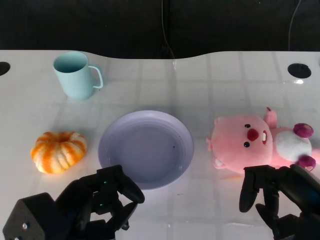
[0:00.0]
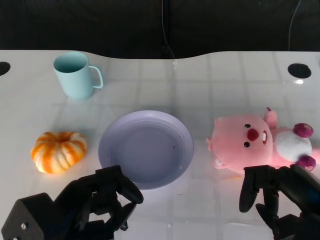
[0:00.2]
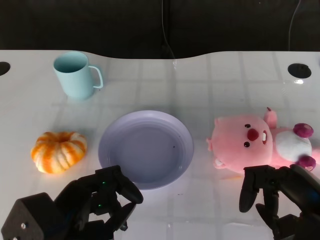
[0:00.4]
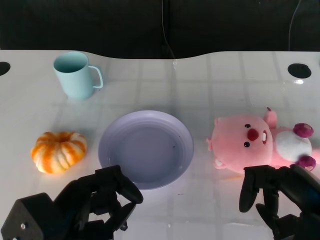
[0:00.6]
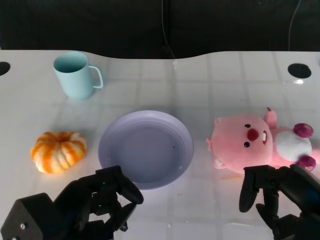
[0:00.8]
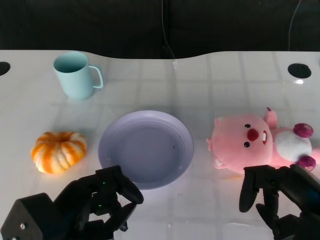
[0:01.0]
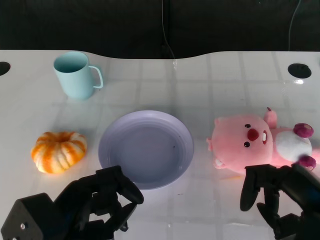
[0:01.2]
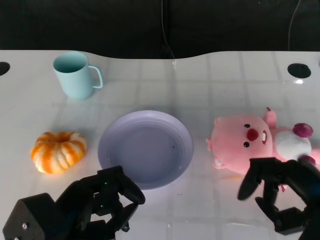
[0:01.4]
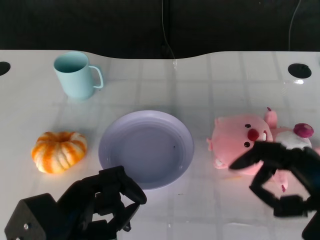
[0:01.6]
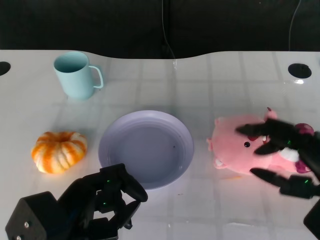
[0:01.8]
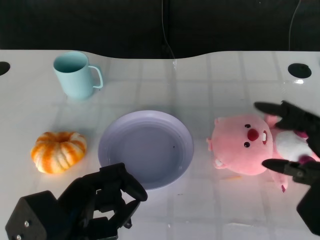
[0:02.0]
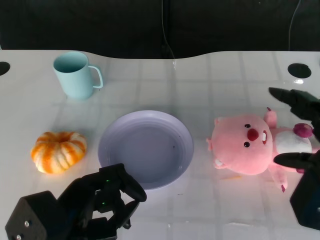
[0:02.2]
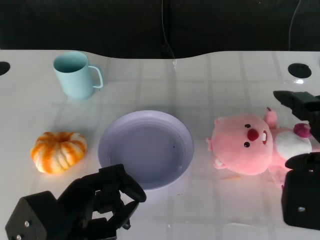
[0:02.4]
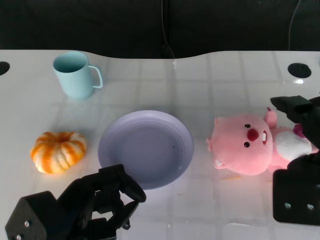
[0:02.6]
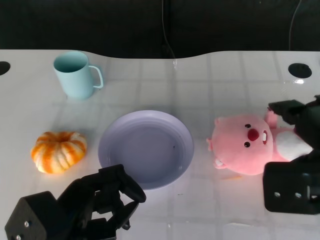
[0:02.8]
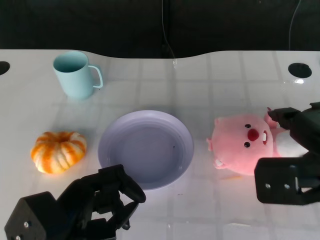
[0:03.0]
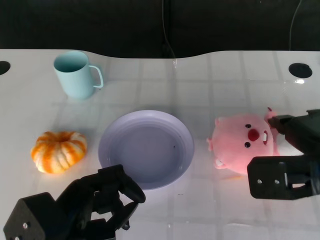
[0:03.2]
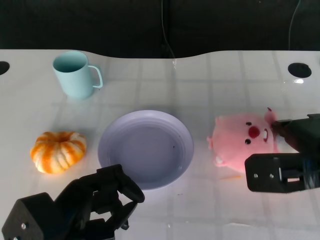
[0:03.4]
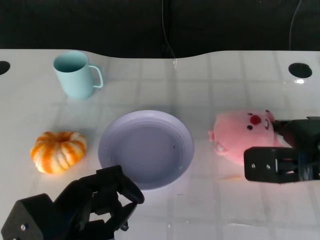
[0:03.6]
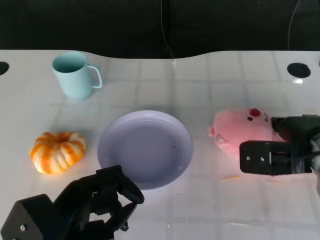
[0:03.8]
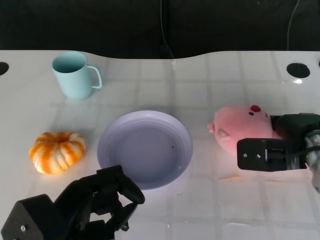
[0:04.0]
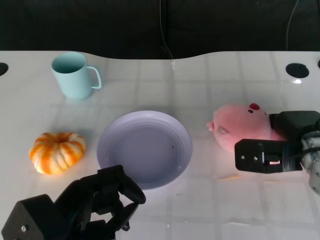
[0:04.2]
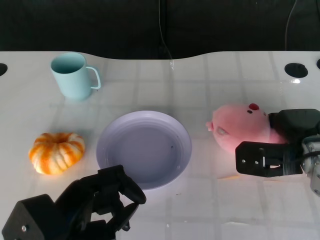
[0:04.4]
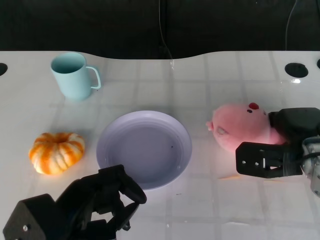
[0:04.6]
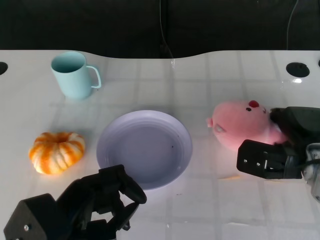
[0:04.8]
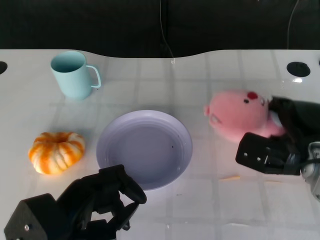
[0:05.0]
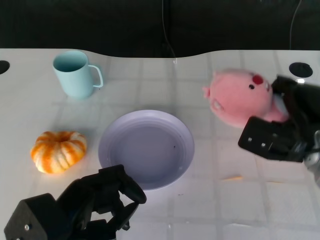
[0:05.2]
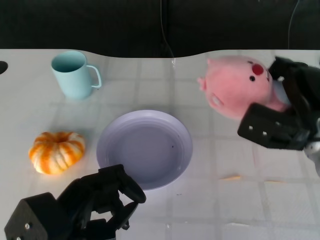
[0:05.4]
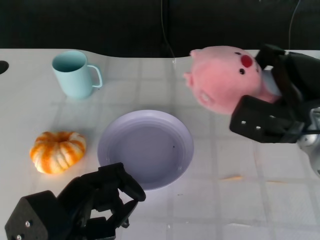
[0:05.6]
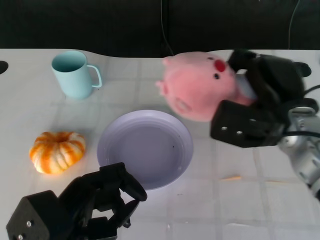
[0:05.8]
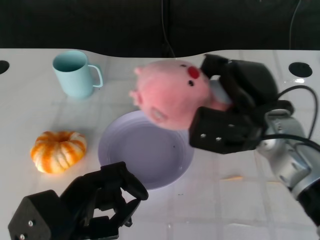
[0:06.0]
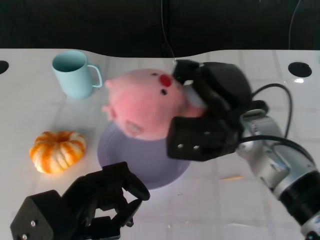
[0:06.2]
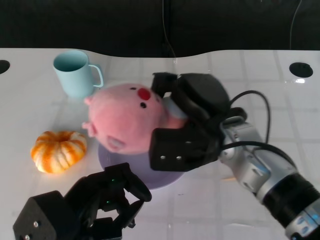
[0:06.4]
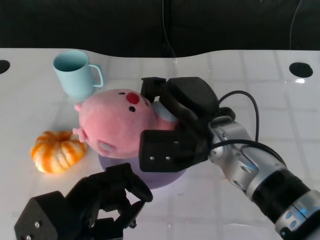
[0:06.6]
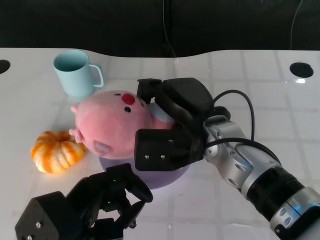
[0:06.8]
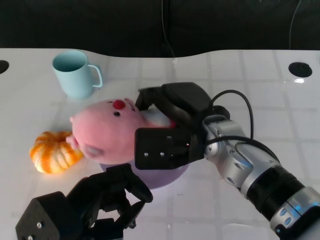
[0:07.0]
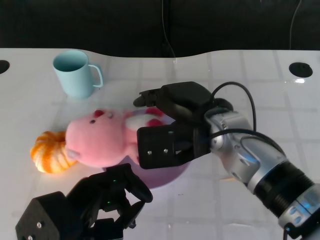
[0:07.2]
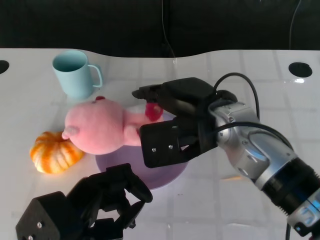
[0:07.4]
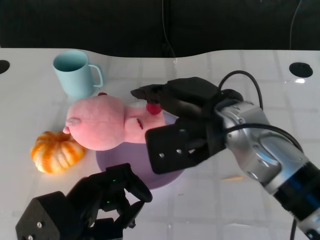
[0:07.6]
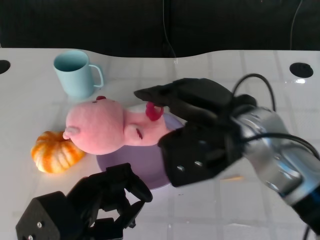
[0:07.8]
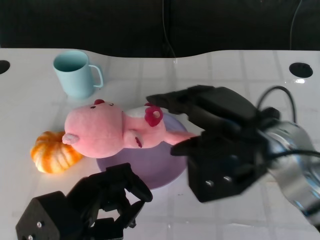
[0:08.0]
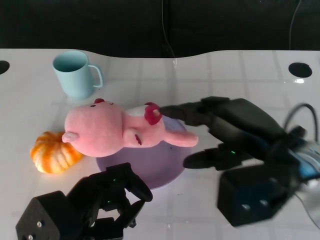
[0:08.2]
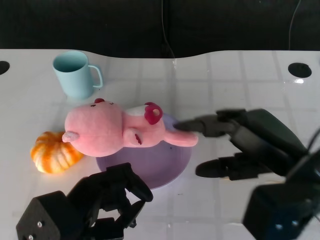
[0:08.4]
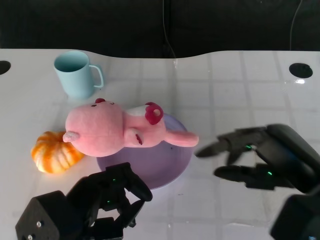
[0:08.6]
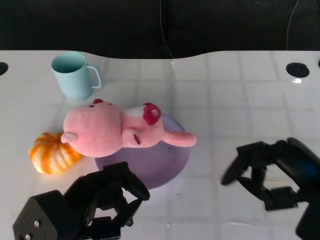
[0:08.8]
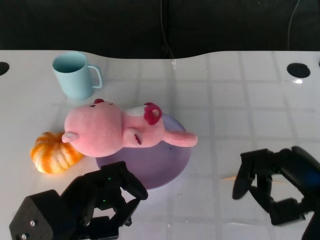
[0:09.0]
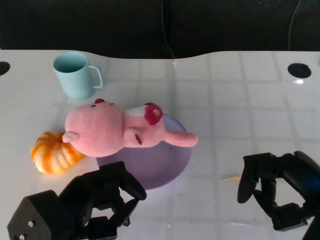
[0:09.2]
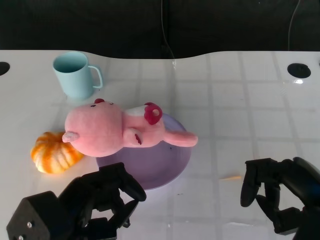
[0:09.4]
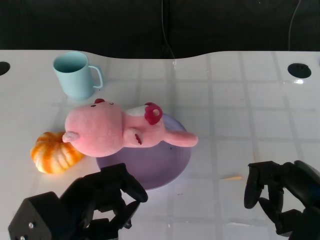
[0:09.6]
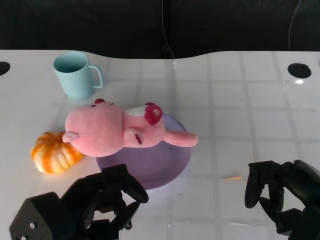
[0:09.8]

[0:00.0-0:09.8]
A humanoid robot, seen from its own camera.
Task of the whole recording: Pick up the doll on the other side of the plate and place it into the plate.
Step, 0:01.4 to 0:05.0: Grasp the pink doll with the right gripper.
Step, 0:05.2 to 0:07.4: Place the pink doll into the plate with the right gripper.
0:01.4 to 0:02.8: The right hand shifts some 10 cm upward.
0:02.8 to 0:04.2: The right hand goes about 15 cm downward and forward.
0:04.2 to 0:05.6: The right hand heads upward, covering about 5 cm.
0:05.6 to 0:07.0: The right hand goes approximately 15 cm to the left.
0:07.0 to 0:08.4: The right hand goes roughly 15 cm to the right and backward.
0:08.4 to 0:09.8: The right hand travels to the right and downward by about 10 cm.

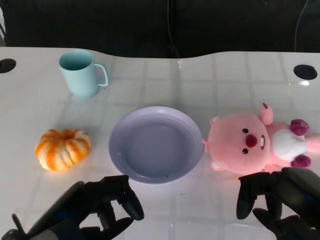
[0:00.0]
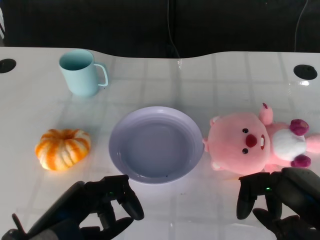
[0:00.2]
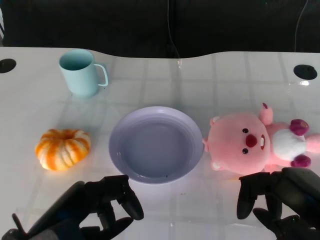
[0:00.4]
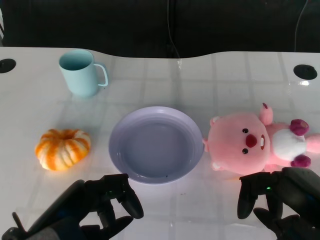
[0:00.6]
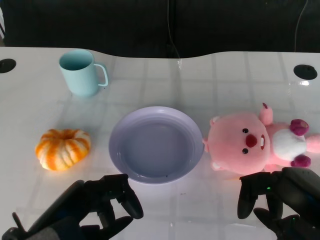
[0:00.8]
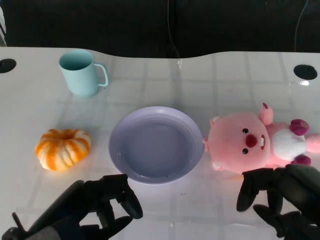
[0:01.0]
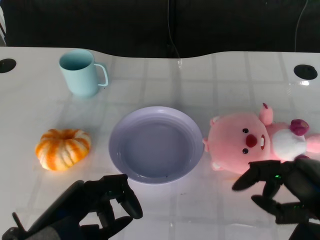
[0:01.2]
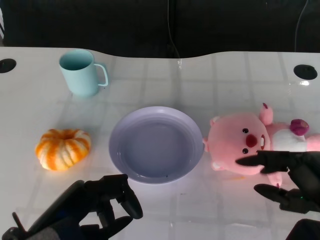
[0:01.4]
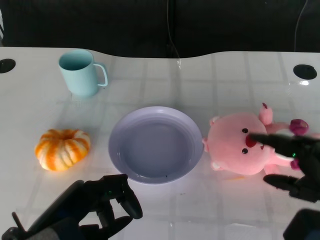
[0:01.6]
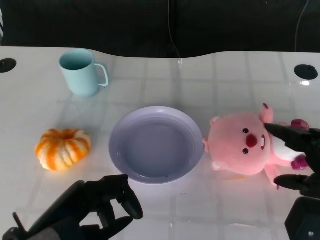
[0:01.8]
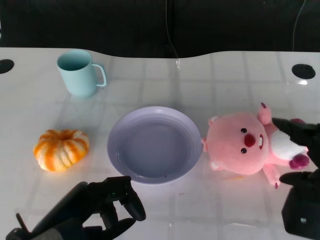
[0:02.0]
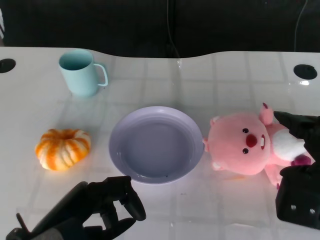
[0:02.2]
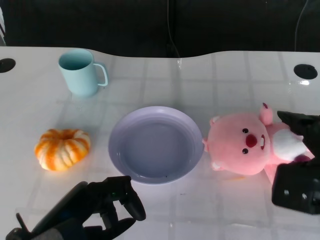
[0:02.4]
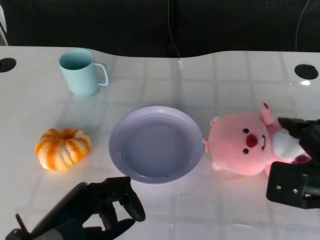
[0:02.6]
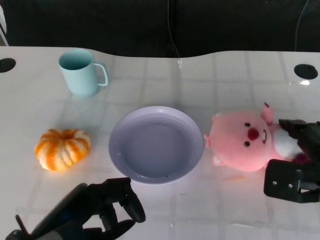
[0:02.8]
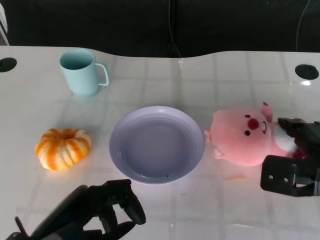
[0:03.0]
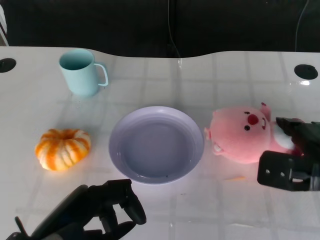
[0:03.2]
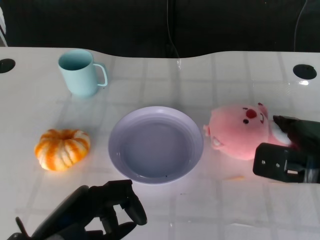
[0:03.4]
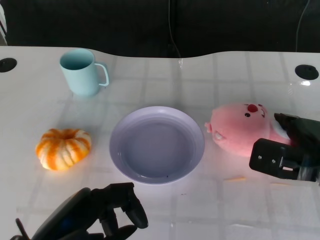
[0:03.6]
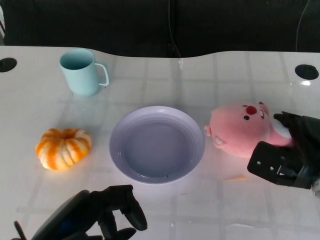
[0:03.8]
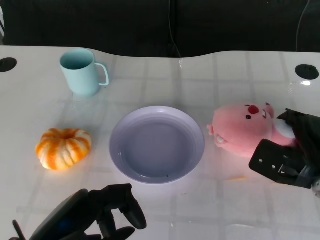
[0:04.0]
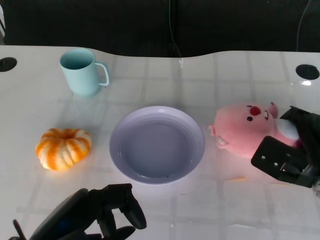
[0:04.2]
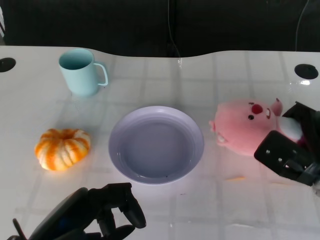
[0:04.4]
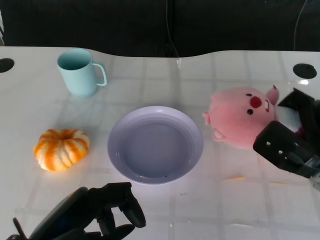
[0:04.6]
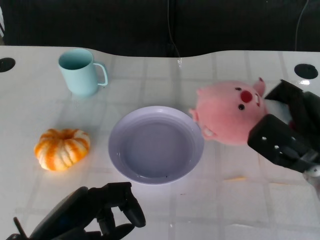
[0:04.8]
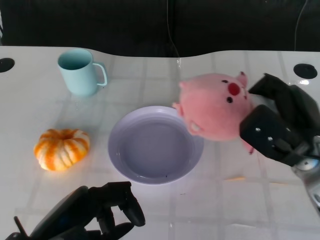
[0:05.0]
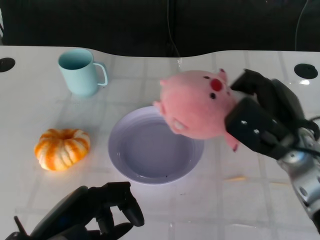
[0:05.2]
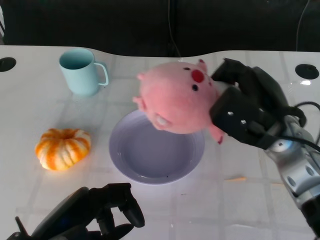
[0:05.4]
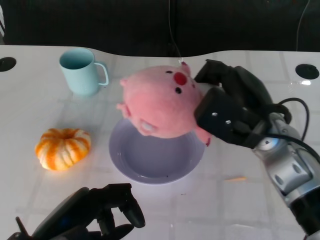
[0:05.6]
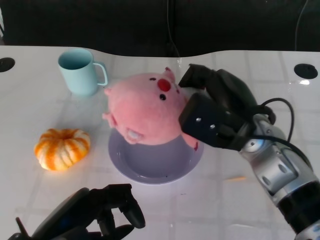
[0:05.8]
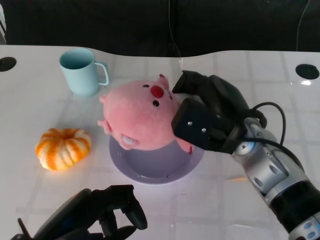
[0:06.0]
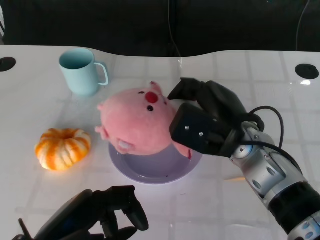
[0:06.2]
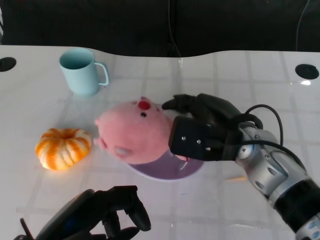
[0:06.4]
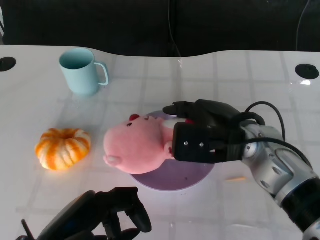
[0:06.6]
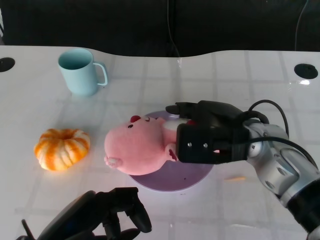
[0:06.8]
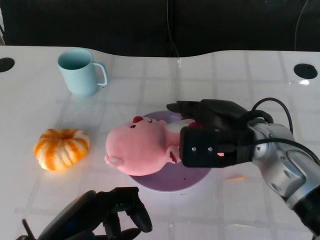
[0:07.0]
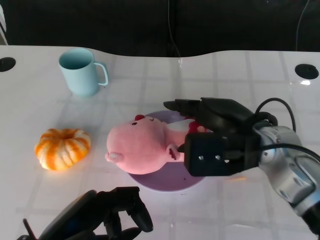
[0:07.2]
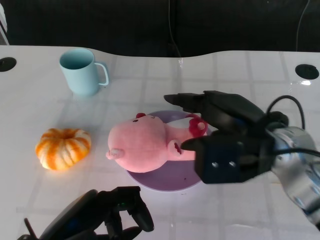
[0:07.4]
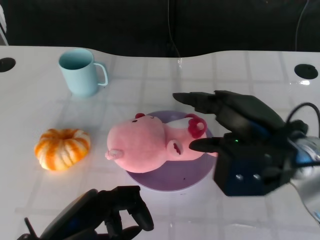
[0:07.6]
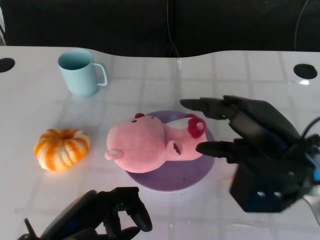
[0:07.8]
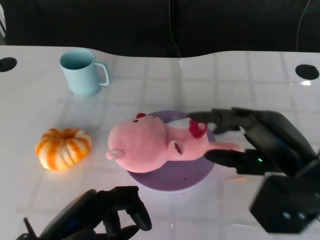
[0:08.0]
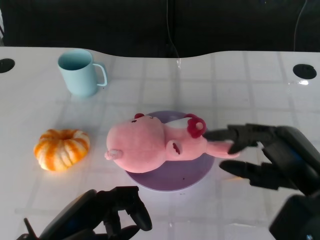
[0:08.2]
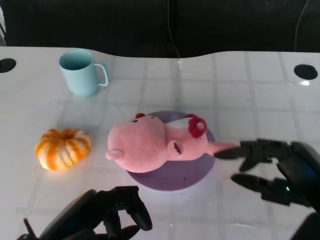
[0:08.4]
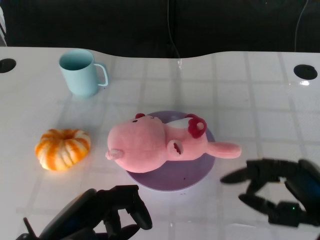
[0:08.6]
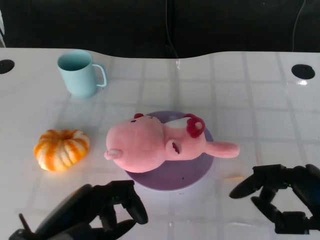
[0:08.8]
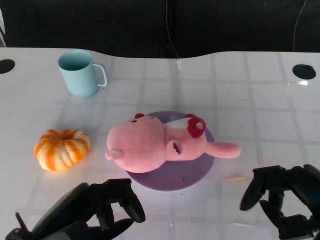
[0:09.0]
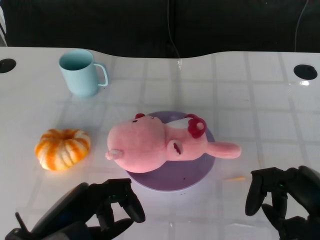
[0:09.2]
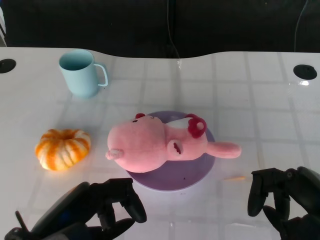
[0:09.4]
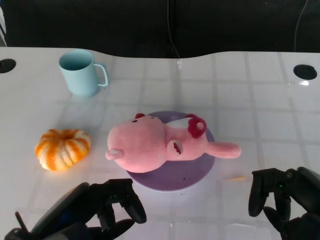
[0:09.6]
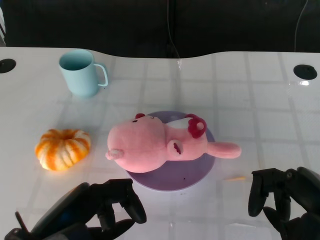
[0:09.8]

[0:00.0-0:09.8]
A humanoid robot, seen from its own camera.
Task of the whole recording: Pick up the doll on the other side of the plate and place it into the plate.
Step, 0:01.0 to 0:04.8: Grasp the pink doll with the right gripper.
Step, 0:05.2 to 0:07.6: Place the pink doll into the plate with the right gripper.
0:01.4 to 0:02.8: The right hand is displaced forward by some 10 cm.
0:02.8 to 0:04.2: The right hand changes place by roughly 5 cm.
0:04.2 to 0:05.6: The right hand travels to the left and upward by about 15 cm.
0:07.0 to 0:08.4: The right hand is displaced backward and to the right by approximately 15 cm.
0:08.4 to 0:09.8: There are only small adjustments of the hands.

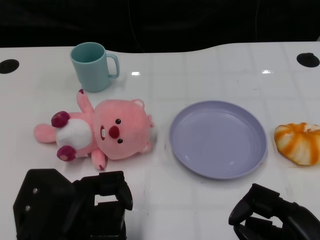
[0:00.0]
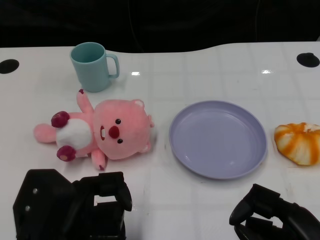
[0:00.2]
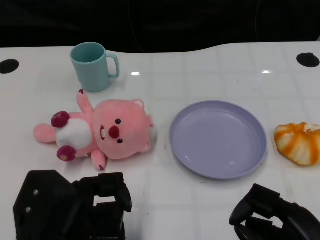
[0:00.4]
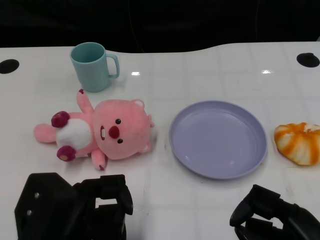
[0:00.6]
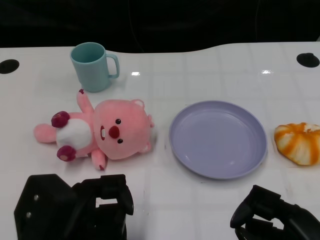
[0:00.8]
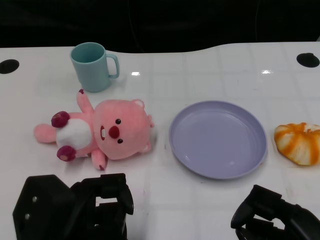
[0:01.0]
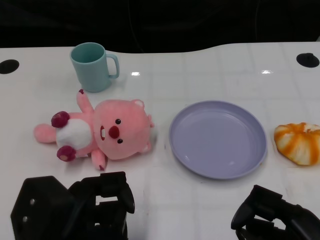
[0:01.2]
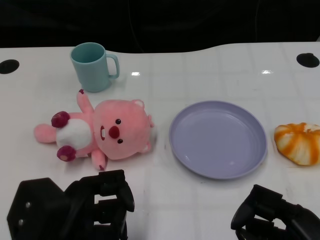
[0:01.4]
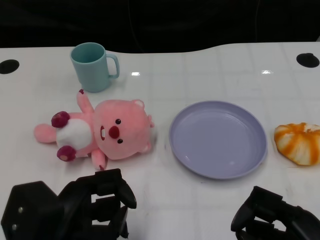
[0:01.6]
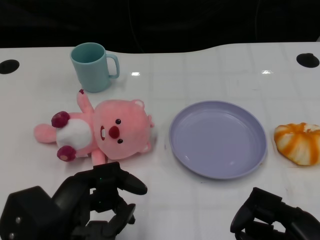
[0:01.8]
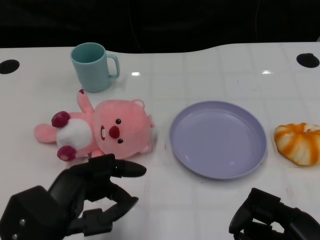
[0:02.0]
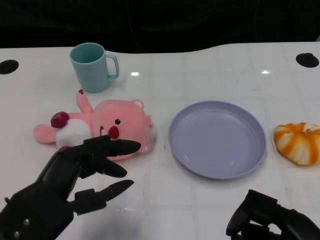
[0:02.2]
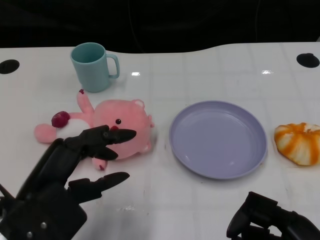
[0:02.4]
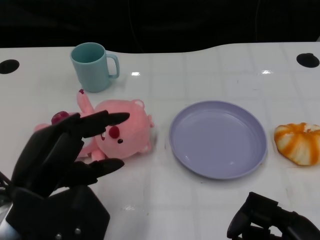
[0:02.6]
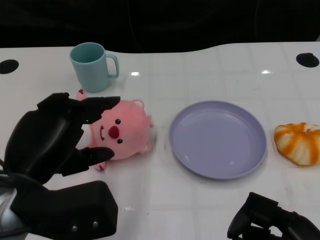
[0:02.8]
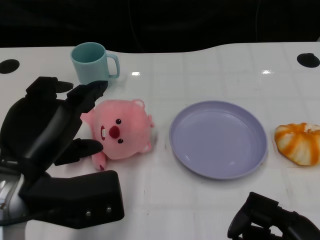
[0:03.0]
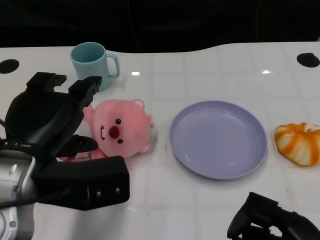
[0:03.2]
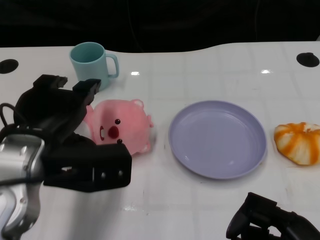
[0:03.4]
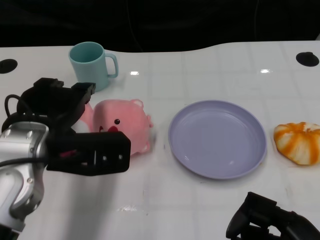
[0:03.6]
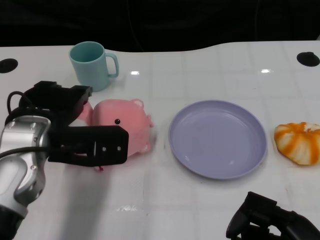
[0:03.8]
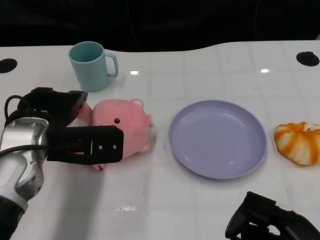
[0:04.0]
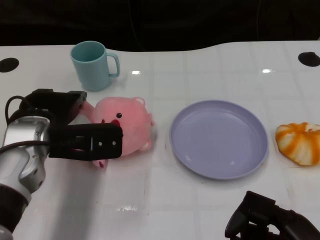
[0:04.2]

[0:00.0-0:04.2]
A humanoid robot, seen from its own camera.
Task of the whole recording: Pick up the doll on one side of the plate and place it into the plate.
0:01.4 to 0:02.8: The left hand shifts some 5 cm upward.
0:02.8 to 0:04.2: The left hand goes about 10 cm forward.
